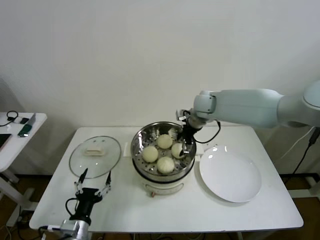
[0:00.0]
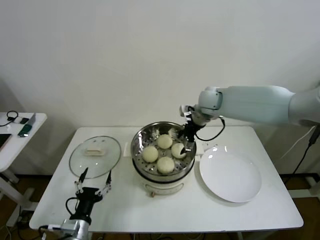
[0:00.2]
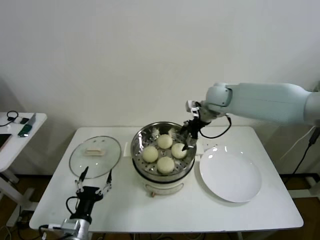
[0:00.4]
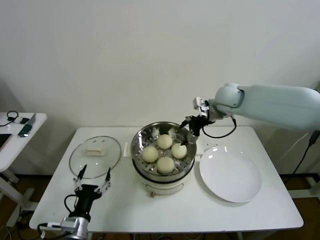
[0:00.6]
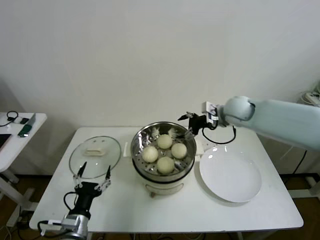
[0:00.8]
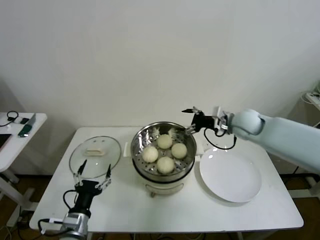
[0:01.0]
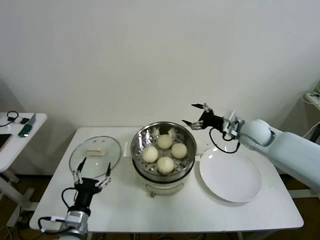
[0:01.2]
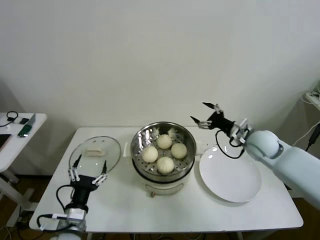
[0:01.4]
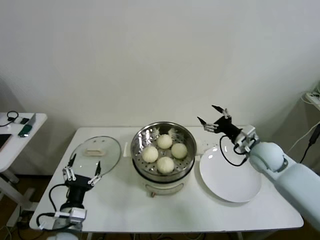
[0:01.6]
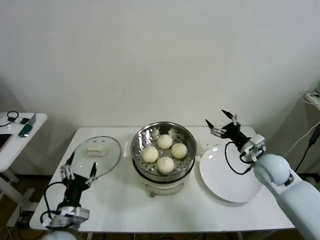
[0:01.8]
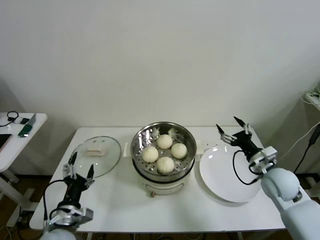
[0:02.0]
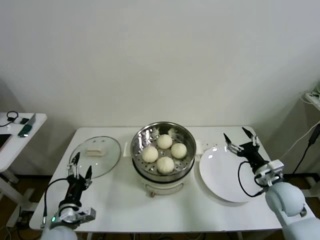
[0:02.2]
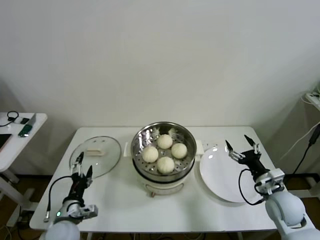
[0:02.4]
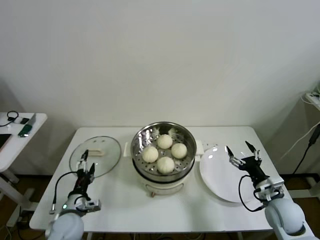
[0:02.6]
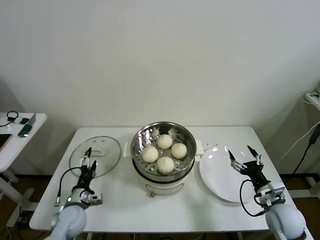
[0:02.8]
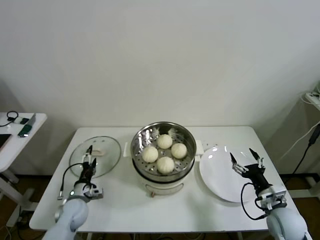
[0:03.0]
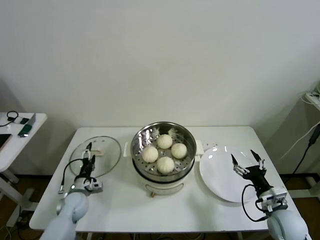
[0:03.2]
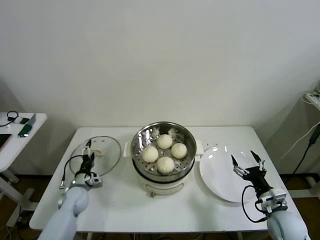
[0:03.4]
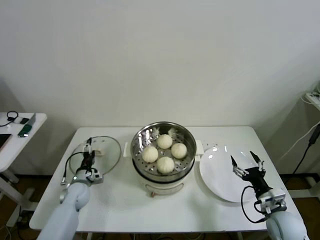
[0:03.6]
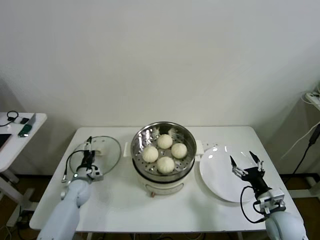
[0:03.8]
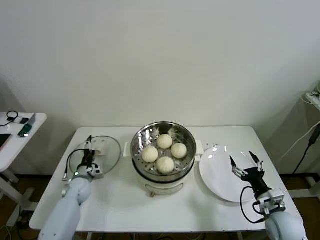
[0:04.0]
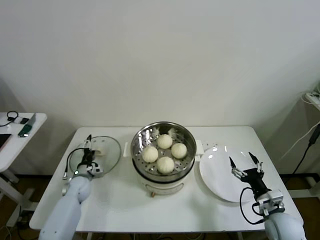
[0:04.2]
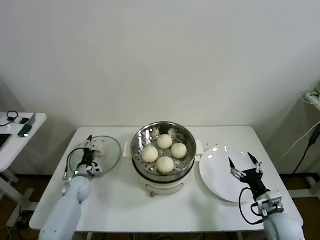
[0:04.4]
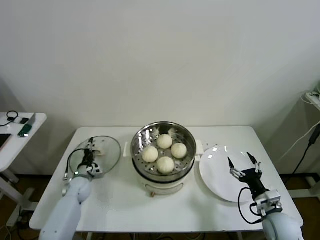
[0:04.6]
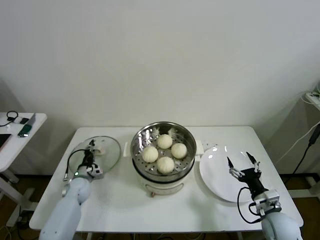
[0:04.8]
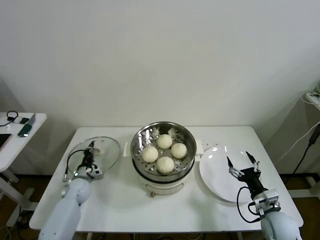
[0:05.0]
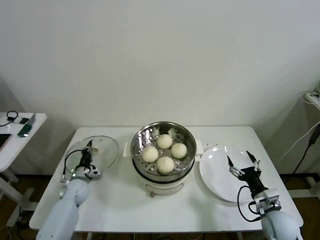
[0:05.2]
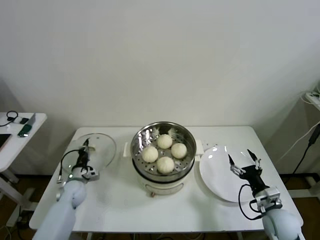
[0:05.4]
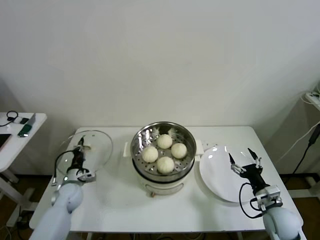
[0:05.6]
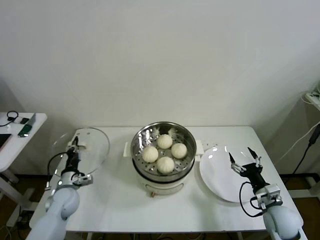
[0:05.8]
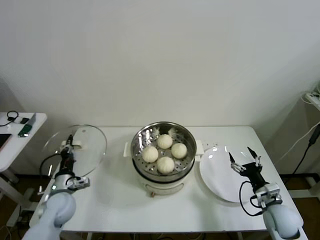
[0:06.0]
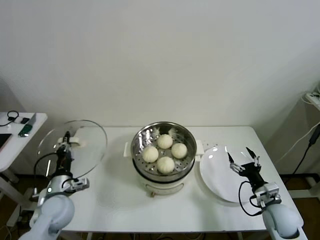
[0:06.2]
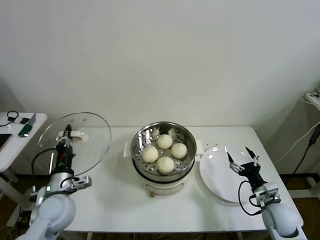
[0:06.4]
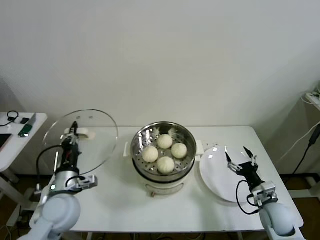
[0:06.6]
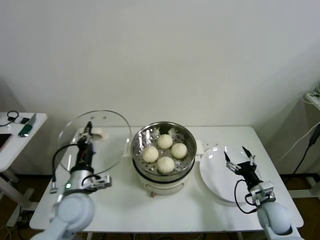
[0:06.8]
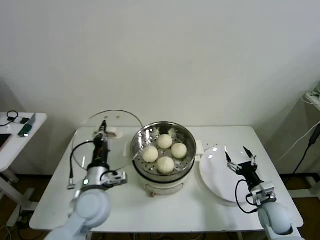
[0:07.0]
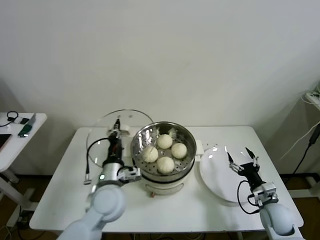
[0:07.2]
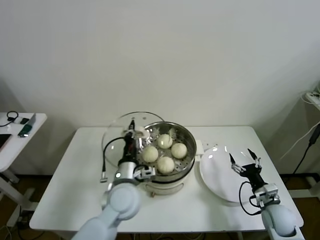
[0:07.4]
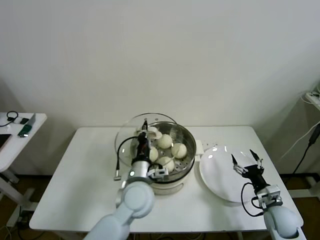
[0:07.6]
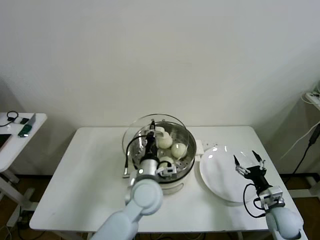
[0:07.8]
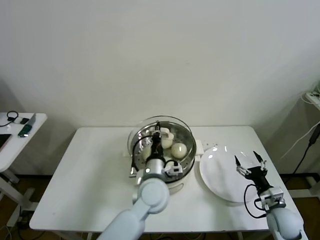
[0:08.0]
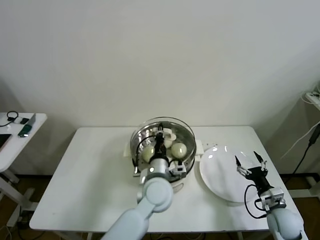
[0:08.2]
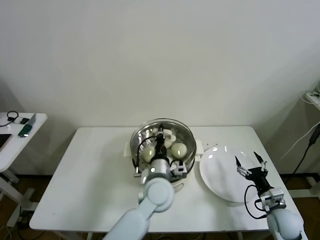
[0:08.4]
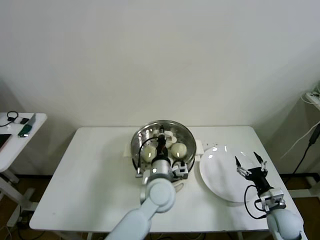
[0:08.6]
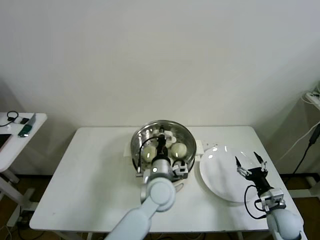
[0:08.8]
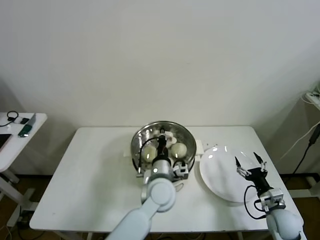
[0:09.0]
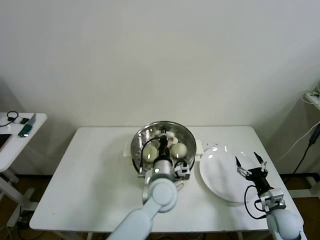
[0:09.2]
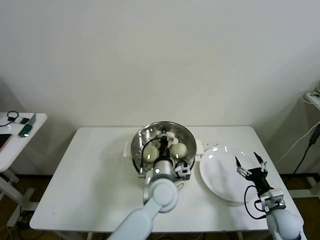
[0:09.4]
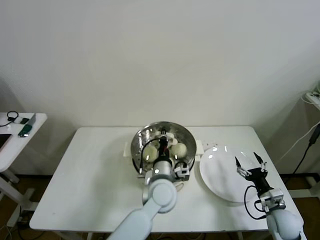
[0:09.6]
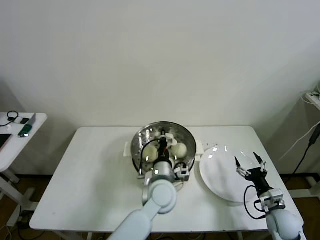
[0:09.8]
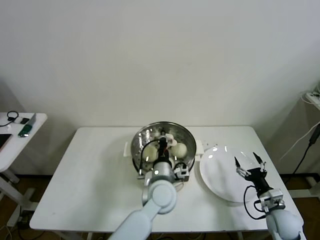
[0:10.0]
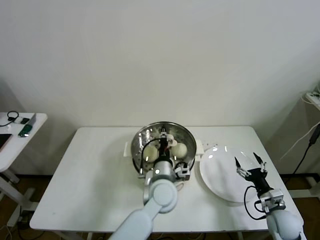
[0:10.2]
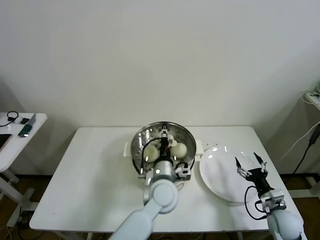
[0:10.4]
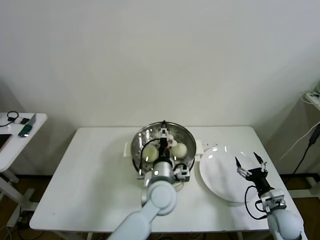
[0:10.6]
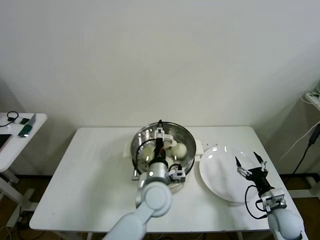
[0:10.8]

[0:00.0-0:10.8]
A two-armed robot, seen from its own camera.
Task of the whole recording: take steamed baozi put them in steamer then cover it.
Step, 0.0 to 5.0 s: Grasp the pot lid with left gripper.
Step, 5.2 to 10.8 s: Place the pot lid on the steamer with left gripper.
0.0 to 1.6 s: The right gripper shifts approximately 25 cm to the right, backward and downward. Meanwhile the left gripper is displaced upward by roughly 5 cm.
1.6 to 3.0 s: The right gripper moves backward and downward, approximately 20 cm, while the left gripper heads forward, downward and to the left, covering about 20 cm.
3.0 to 4.6 s: The left gripper heads forward, covering some 10 cm, and closes up.
4.6 to 6.2 s: The left gripper moves upward and backward, approximately 15 cm, and closes its fingers.
6.2 to 7.8 s: The left gripper moves to the right, roughly 30 cm.
7.8 to 9.2 s: The left gripper heads to the right, covering about 5 cm.
9.2 to 10.8 s: The left gripper opens up.

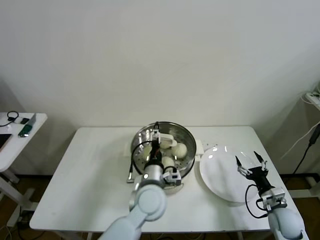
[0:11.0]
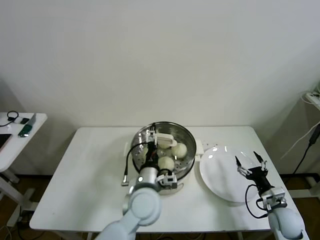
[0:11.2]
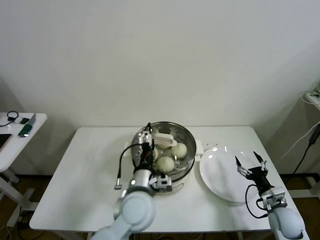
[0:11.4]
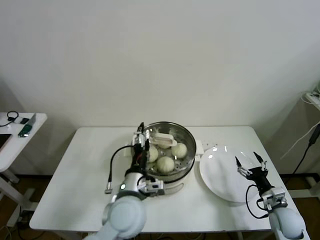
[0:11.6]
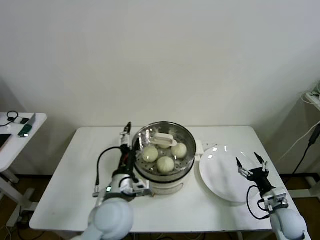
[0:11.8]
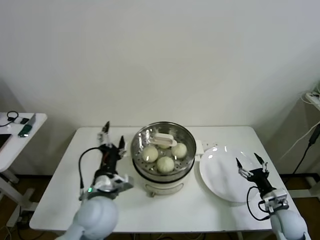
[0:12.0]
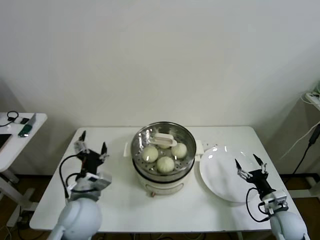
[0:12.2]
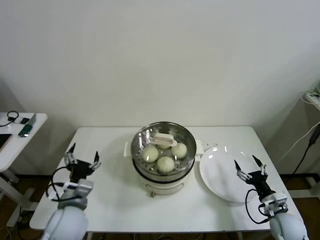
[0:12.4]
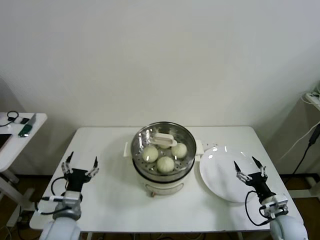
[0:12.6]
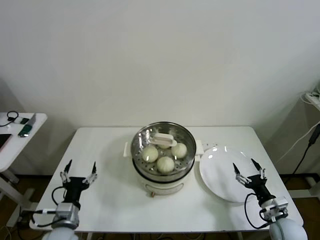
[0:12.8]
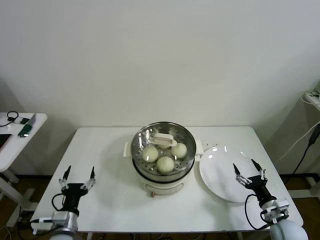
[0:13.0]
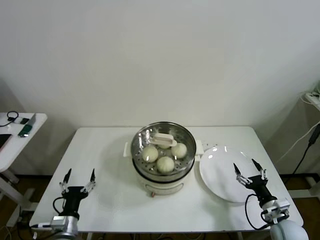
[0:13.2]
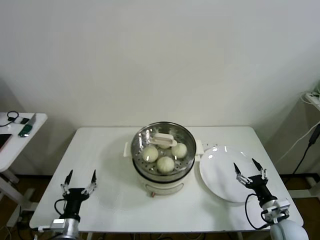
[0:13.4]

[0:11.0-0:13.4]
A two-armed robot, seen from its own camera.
Task of the whole recording: take steamed baozi put them in steamer then cover it.
11.0 to 12.2 s: The left gripper shifts roughly 15 cm to the left.
12.2 to 13.4 s: The left gripper shifts approximately 20 cm downward, to the left and backward.

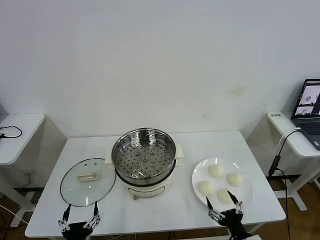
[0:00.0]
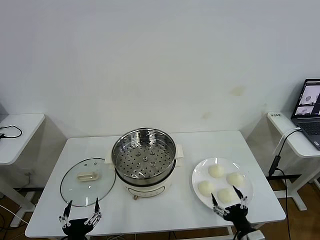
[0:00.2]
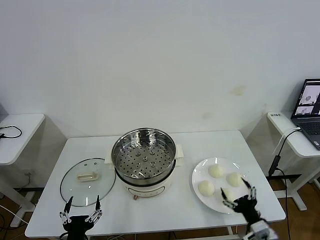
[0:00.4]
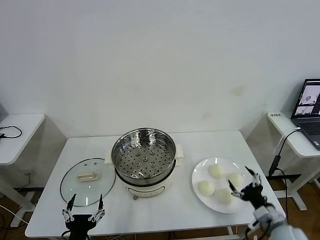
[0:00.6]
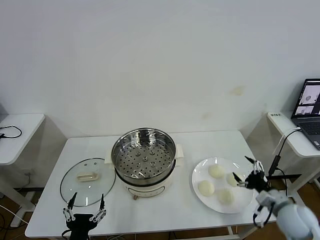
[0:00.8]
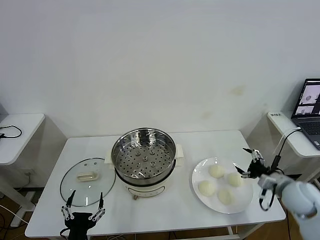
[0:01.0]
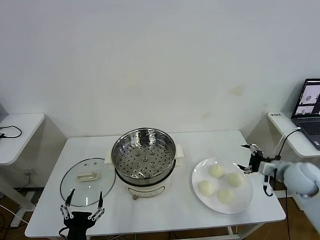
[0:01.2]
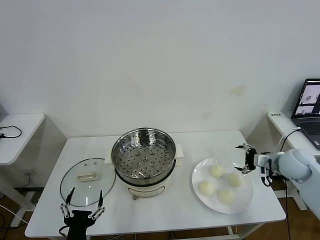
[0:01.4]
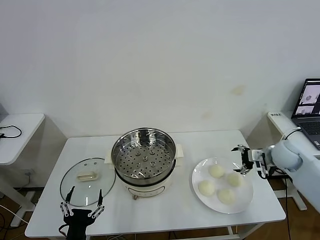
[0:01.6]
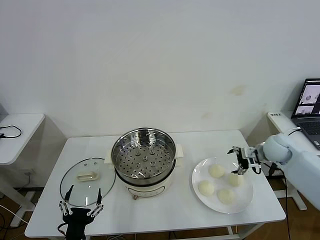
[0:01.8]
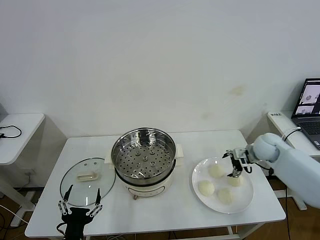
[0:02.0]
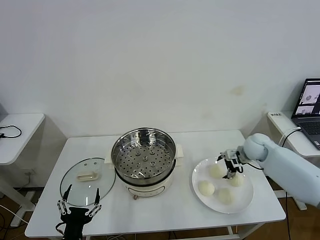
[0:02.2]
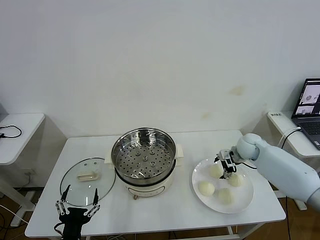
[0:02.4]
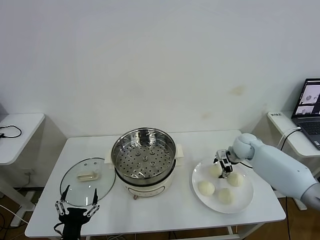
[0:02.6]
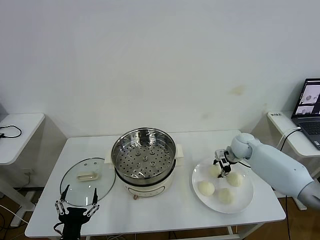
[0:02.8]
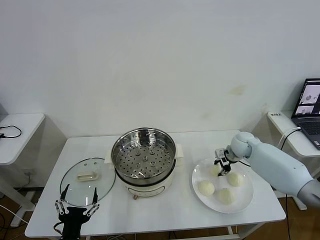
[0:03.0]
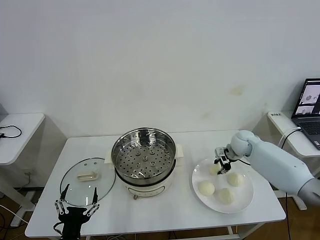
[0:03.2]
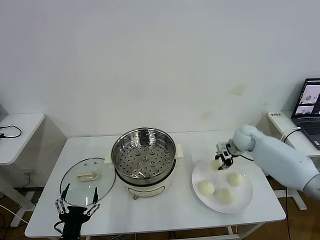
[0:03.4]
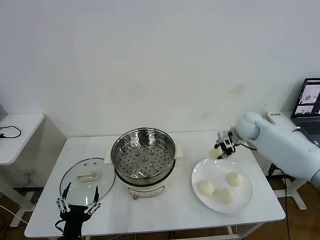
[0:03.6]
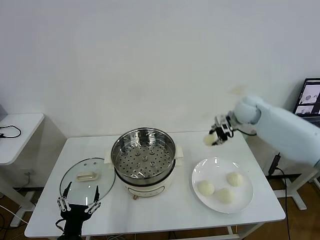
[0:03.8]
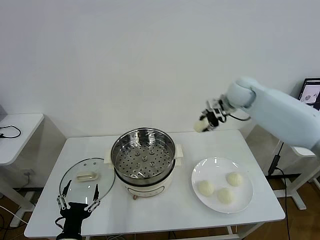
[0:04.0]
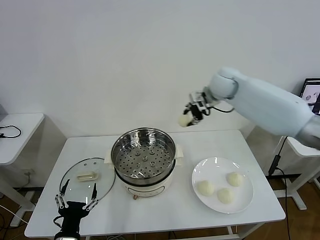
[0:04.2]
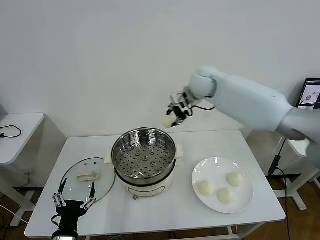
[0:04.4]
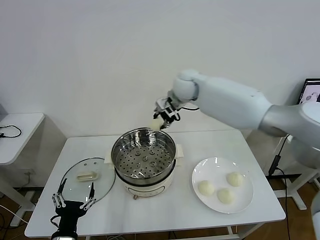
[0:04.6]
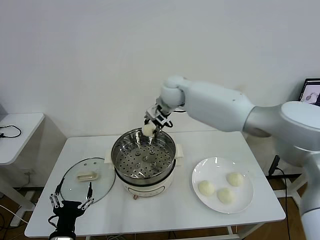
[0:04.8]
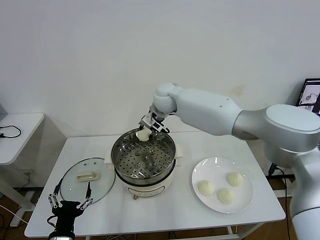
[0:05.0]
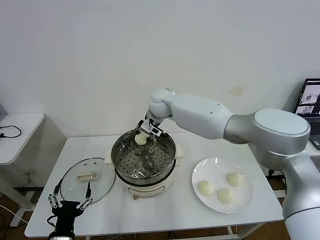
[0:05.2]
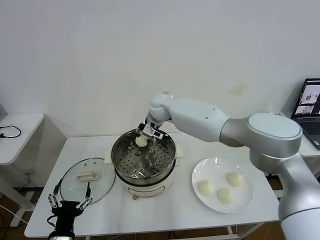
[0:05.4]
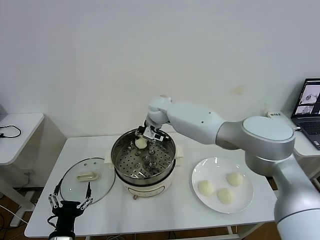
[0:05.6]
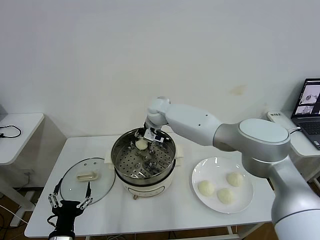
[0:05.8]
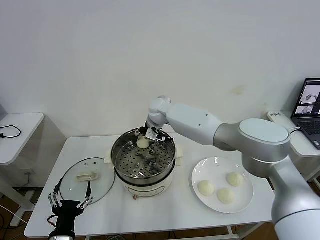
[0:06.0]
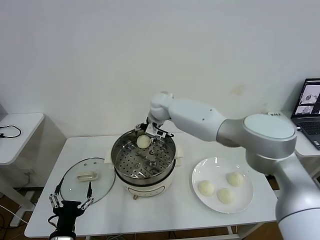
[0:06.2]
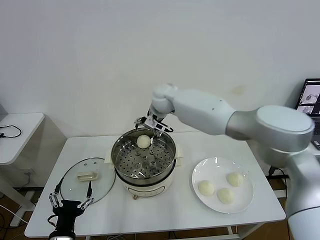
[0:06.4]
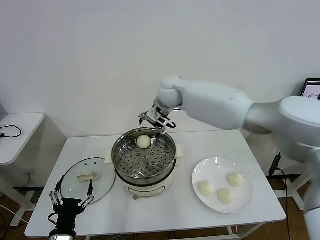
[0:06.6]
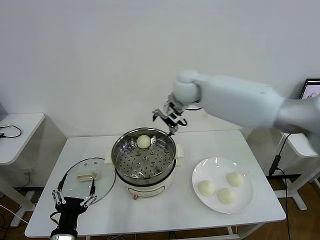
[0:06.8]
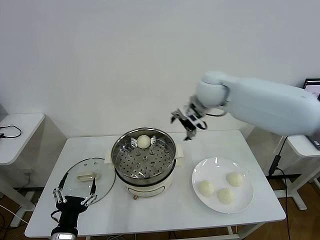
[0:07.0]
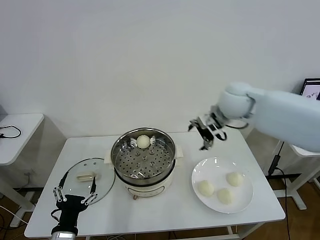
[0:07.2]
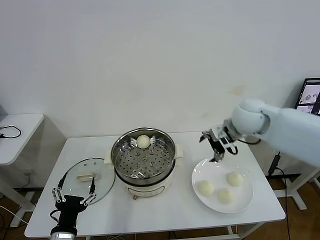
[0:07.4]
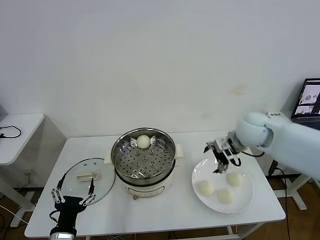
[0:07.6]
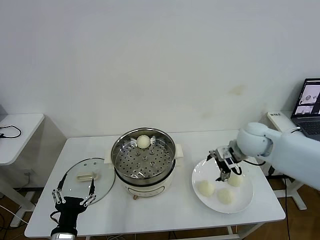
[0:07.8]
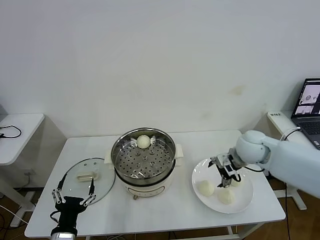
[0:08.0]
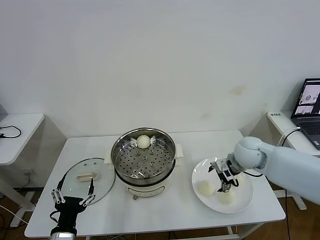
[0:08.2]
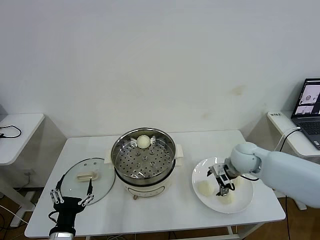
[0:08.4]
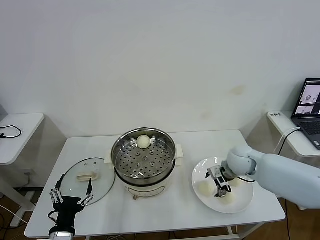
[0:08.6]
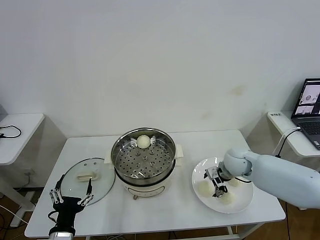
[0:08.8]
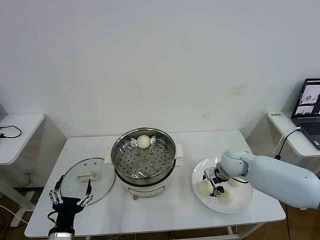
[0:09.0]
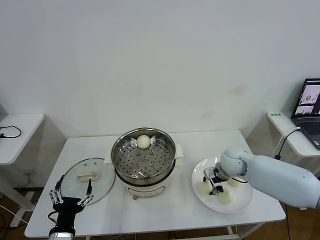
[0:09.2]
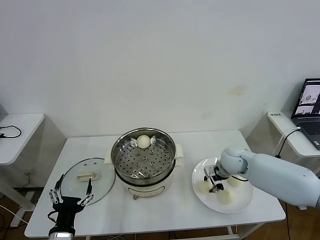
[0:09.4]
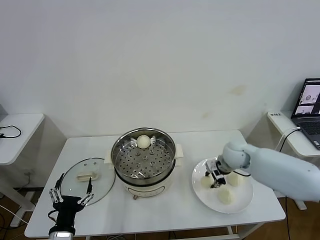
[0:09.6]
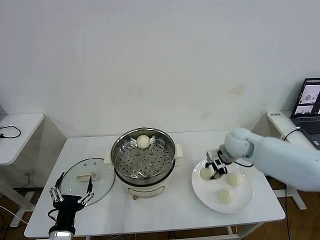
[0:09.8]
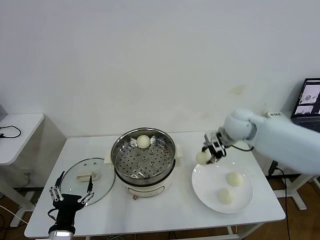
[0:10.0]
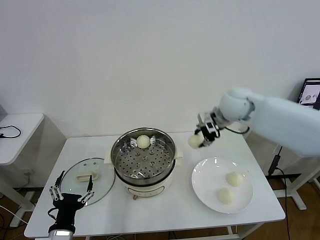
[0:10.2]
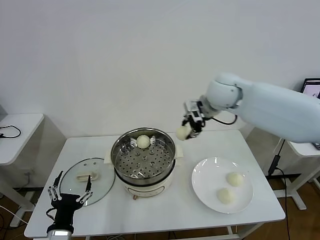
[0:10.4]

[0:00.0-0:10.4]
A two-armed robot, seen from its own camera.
Task of the whole recording: take steamed baozi put them in steamer then cover it.
Step, 0.0 to 2.8 s: Grasp the baozi in the plate with right gripper.
Step, 3.0 to 6.0 s: Place the baozi on the steamer with right gripper.
Step, 6.2 to 9.0 s: Grasp the baozi in the plate with right gripper.
1.4 to 3.0 s: The right gripper moves forward, to the left and downward, roughly 20 cm, and closes up.
3.0 to 4.4 s: The right gripper heads upward and to the left, covering roughly 30 cm.
4.4 to 6.0 s: The right gripper is displaced to the left and downward by approximately 20 cm, and opens its fingers.
6.0 to 7.4 s: The right gripper heads to the right and backward, covering about 30 cm.
7.4 to 9.0 s: The right gripper travels downward by roughly 20 cm, and closes up.
9.0 to 10.4 s: The right gripper heads upward, covering about 25 cm, and closes.
